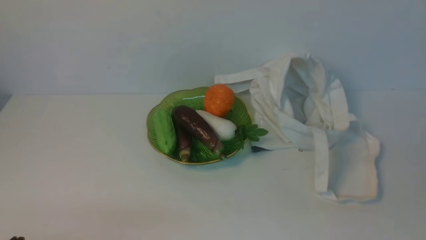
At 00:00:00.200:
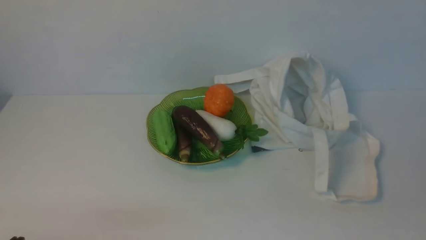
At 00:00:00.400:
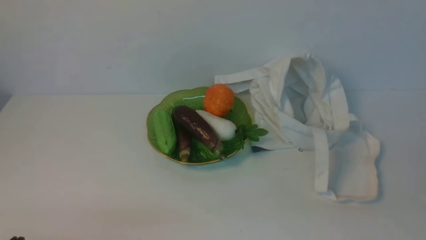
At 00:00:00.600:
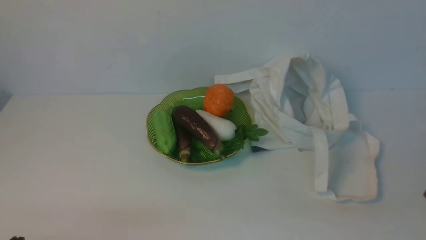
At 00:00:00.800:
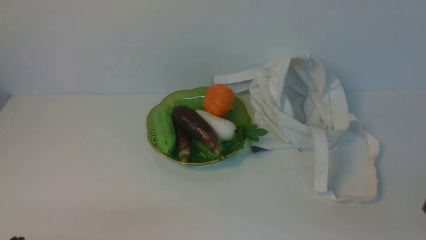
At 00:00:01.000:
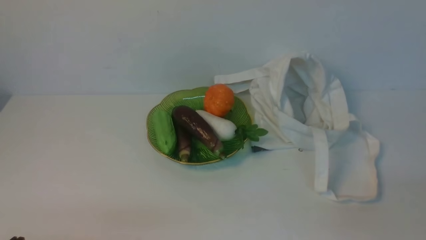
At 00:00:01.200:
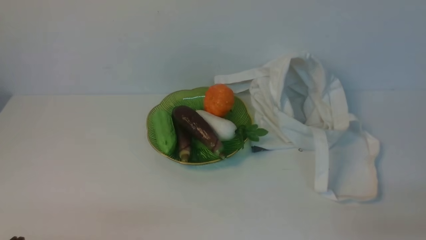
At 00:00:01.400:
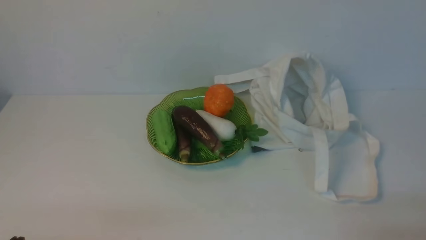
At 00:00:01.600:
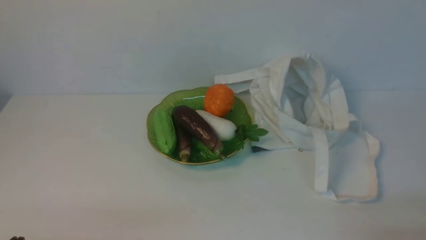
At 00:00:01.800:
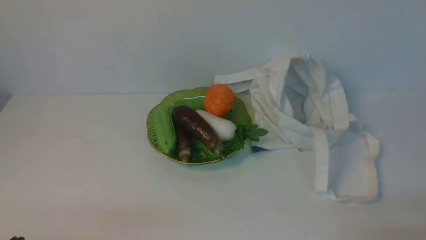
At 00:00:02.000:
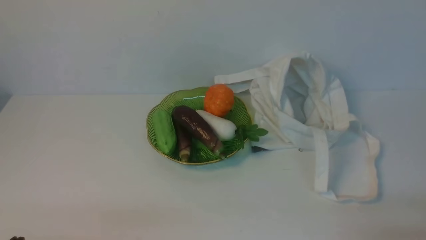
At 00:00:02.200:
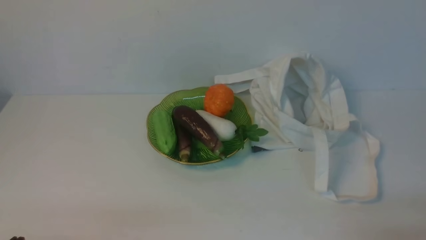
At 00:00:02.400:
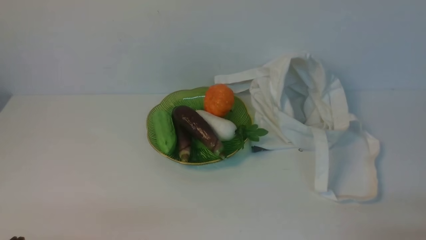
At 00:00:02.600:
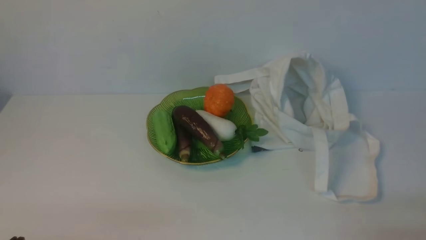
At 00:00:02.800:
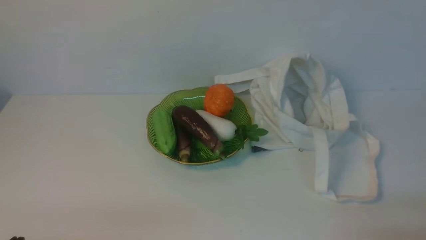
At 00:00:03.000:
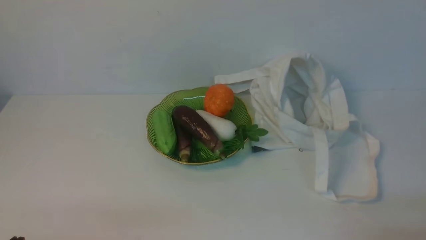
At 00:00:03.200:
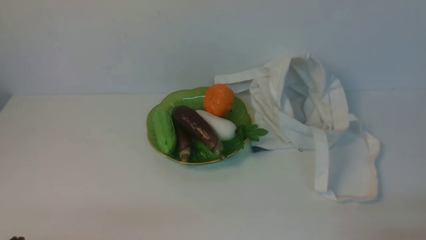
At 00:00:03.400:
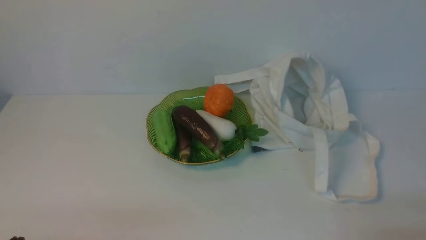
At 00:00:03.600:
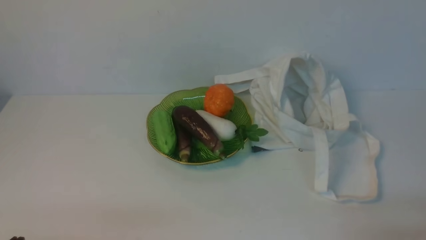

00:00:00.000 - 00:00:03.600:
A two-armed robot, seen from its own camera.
Task of the whole recording: take vegetables from cloth bag on white table place on plate.
00:00:01.800 - 00:00:03.600: Both grippers stay put.

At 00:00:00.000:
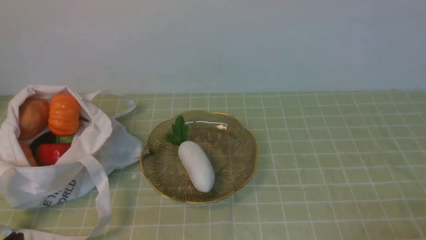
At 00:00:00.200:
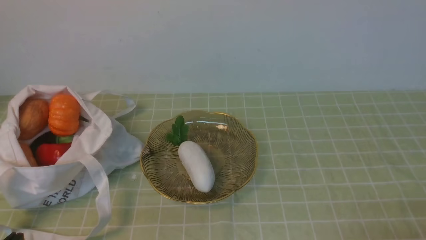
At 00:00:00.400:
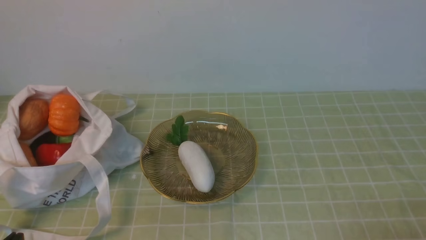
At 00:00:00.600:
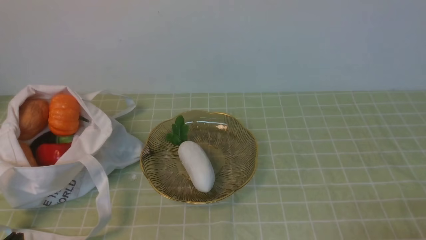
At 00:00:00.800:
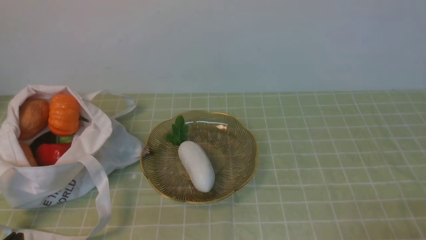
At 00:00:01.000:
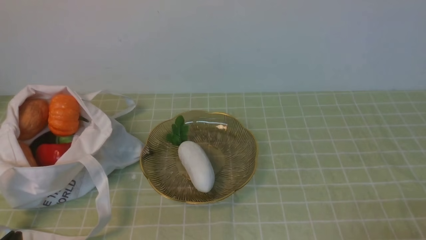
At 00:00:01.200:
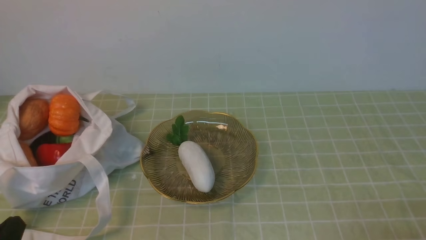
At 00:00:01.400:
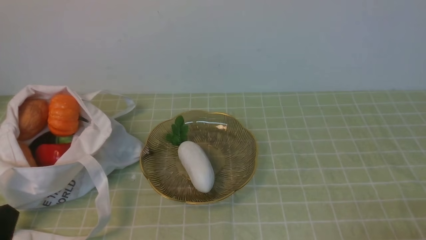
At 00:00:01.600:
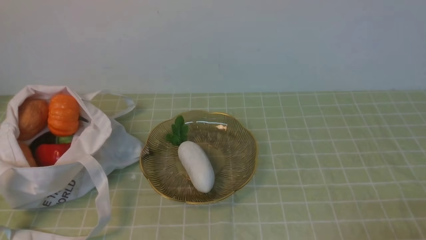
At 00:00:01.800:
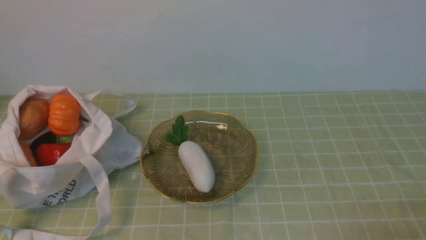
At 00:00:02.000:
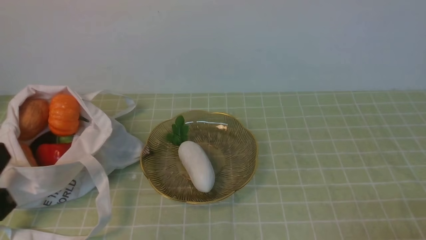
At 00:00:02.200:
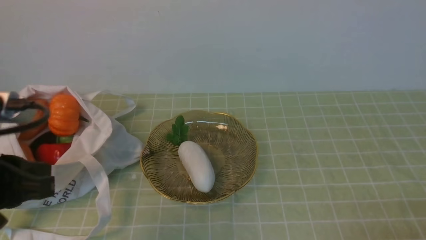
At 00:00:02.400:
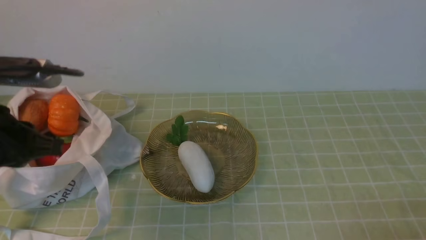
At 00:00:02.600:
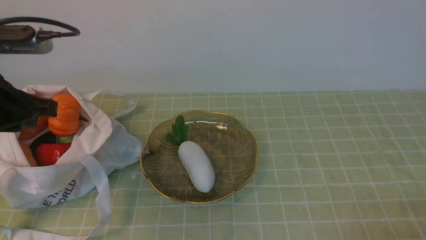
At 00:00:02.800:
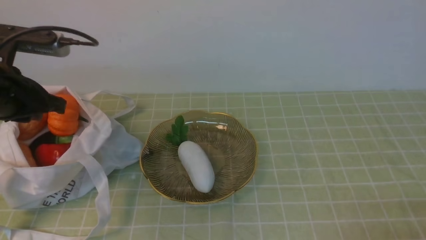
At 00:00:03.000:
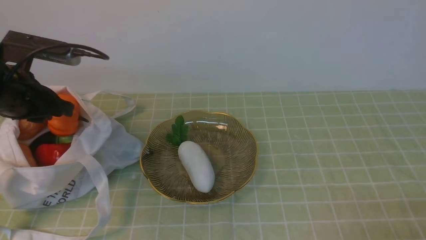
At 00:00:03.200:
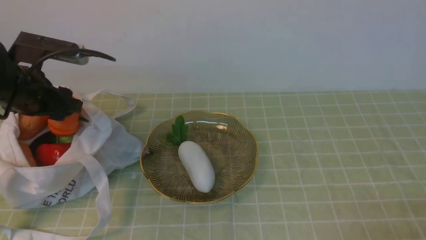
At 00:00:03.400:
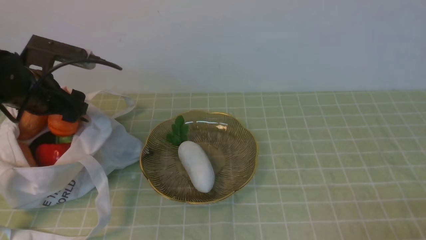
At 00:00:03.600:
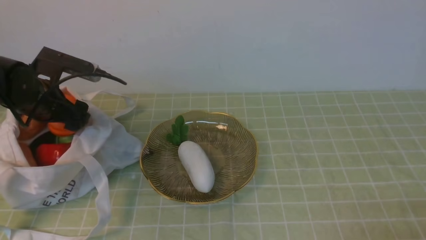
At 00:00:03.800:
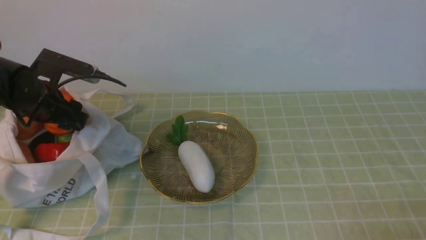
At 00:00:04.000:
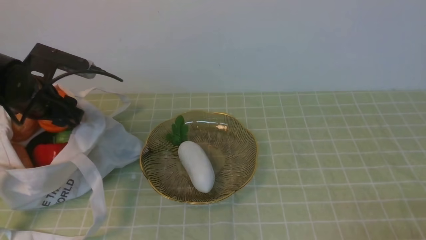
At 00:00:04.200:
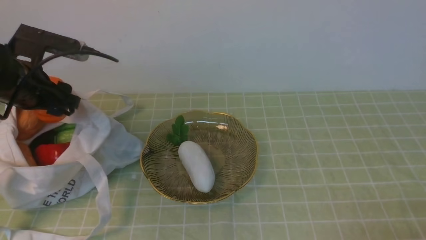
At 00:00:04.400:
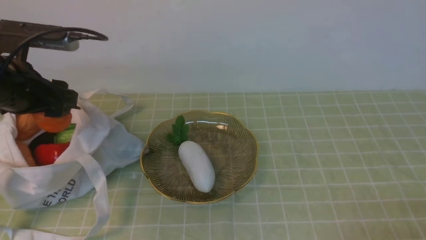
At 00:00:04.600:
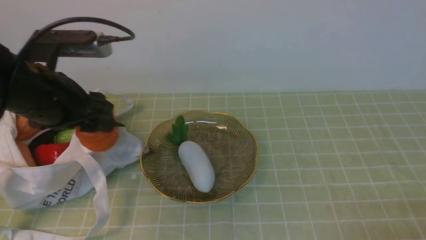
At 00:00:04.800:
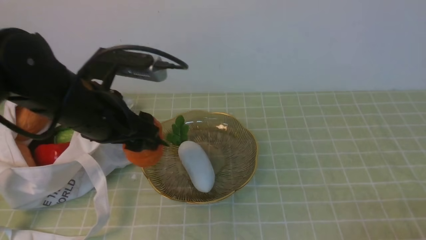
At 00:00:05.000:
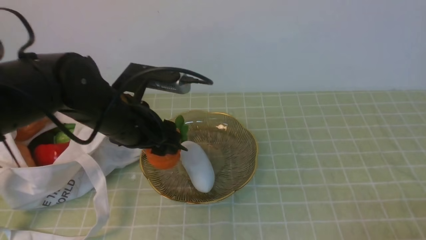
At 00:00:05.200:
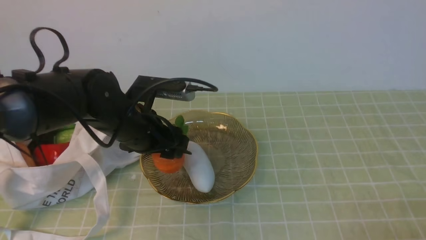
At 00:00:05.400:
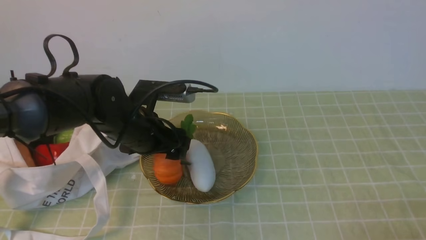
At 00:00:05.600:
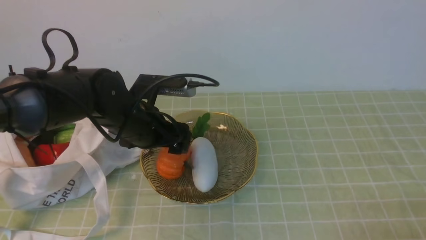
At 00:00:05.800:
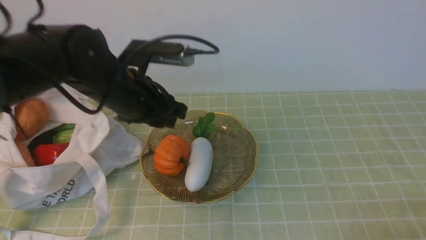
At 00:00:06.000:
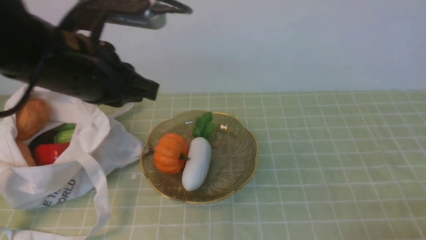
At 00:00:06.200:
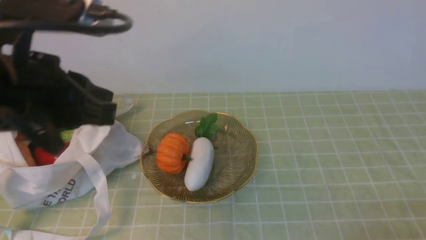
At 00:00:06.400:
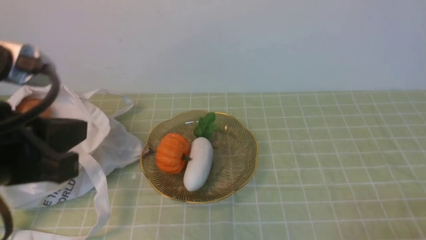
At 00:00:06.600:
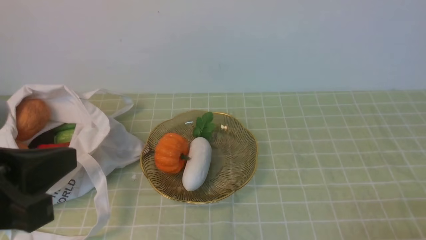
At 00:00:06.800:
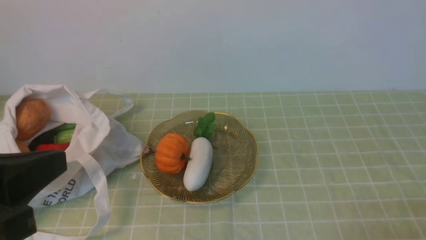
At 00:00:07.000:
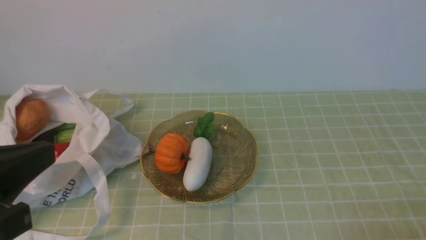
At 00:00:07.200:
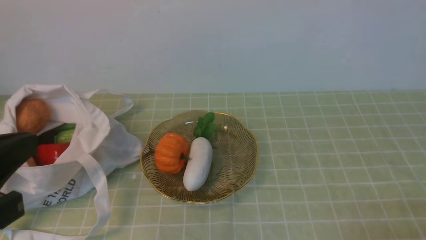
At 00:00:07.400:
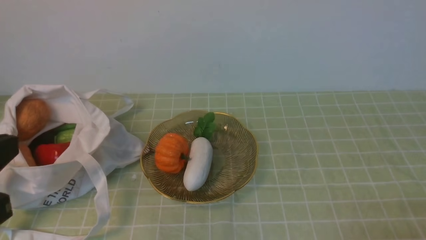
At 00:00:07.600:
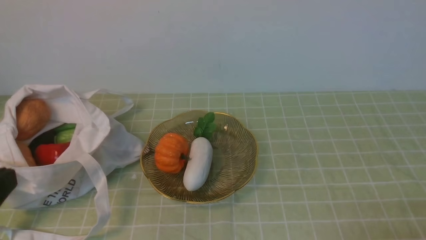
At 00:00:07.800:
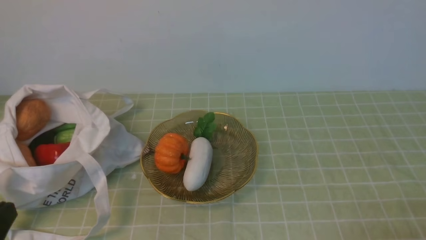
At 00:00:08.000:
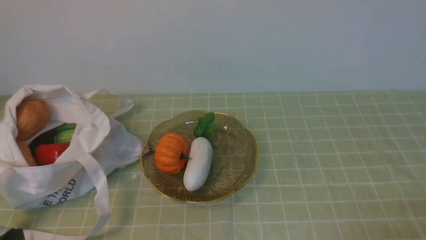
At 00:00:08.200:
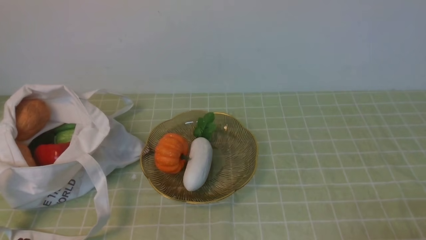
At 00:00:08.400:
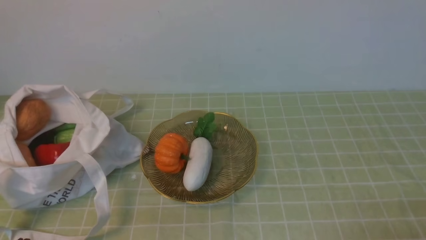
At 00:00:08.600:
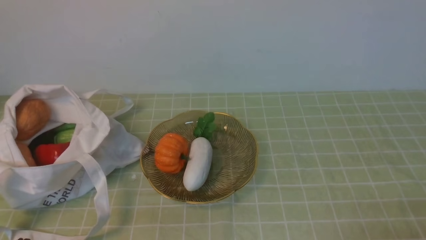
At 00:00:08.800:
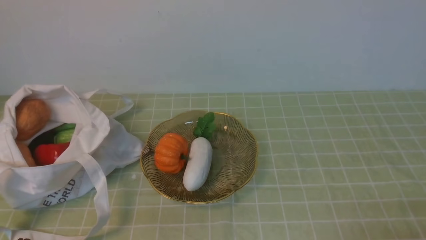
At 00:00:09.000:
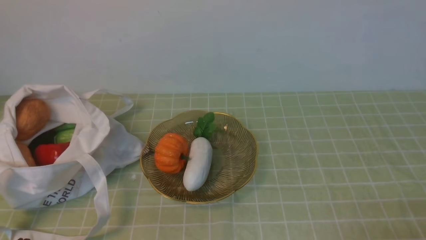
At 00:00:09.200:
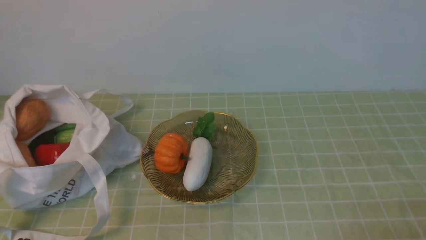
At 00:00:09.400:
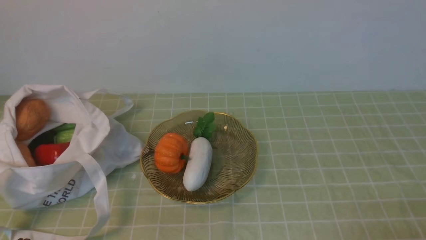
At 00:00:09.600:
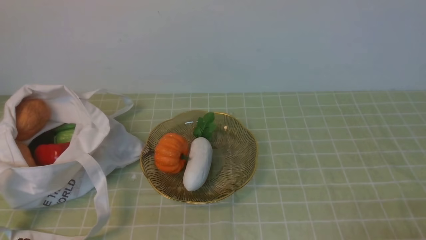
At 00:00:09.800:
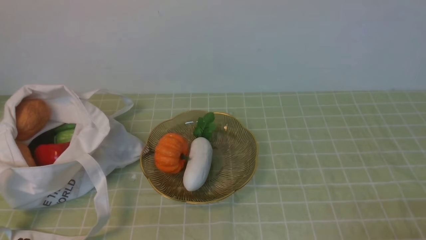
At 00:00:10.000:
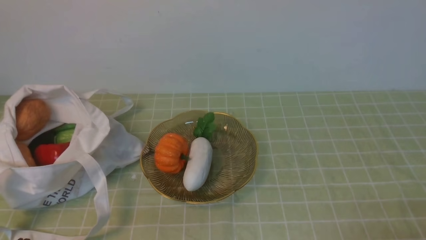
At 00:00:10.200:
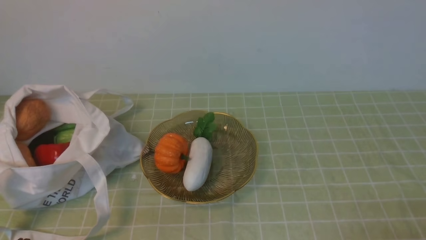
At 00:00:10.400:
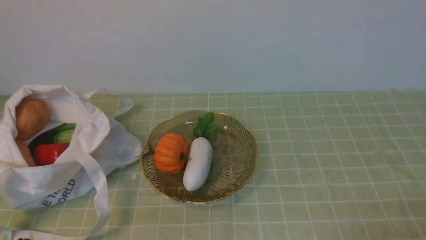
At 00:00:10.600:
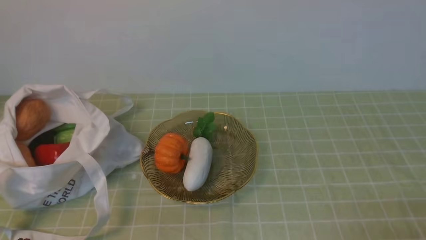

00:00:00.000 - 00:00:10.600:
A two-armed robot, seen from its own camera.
Task of the whole recording: take vegetables from bag on green coffee tablecloth place on plate.
Step, 00:00:00.000 - 00:00:03.800: Grasp the pumpkin with left gripper.
Step, 00:00:04.000 - 00:00:05.600: Place the pumpkin on the plate with left gripper.
00:00:01.600 - 00:00:03.000: The left gripper shifts approximately 25 cm forward.
00:00:03.000 - 00:00:04.600: The left gripper opens.
00:00:04.600 - 00:00:06.000: The left gripper shifts about 10 cm to the right, and closes.
00:00:06.000 - 00:00:07.600: The left gripper heads backward and to the left, covering approximately 25 cm.
00:00:09.000 - 00:00:10.600: Neither gripper changes place.
